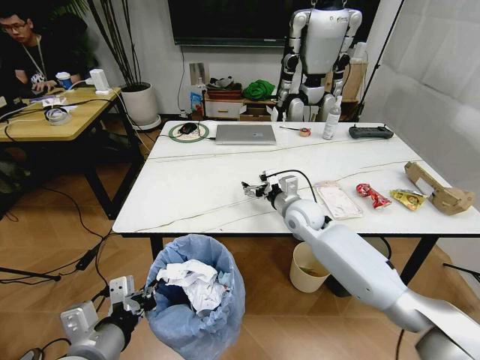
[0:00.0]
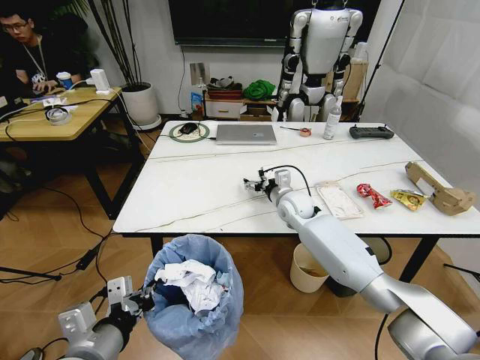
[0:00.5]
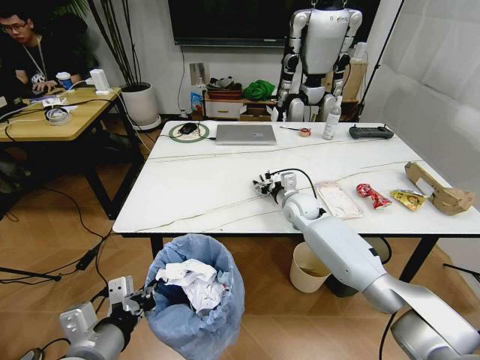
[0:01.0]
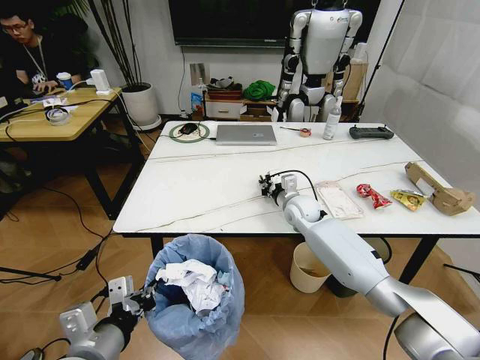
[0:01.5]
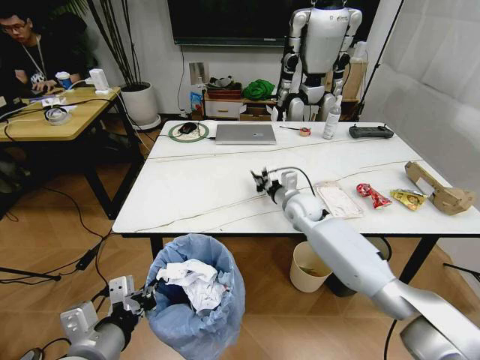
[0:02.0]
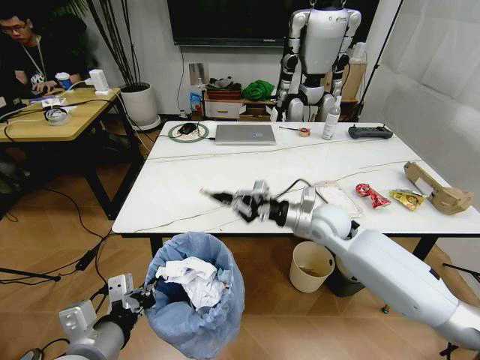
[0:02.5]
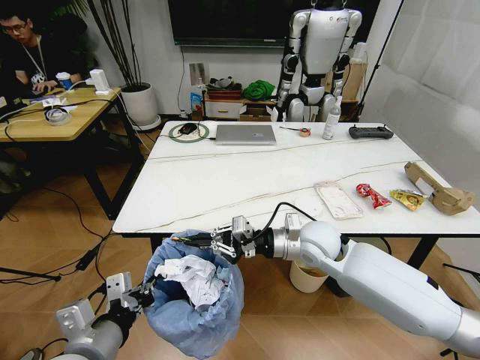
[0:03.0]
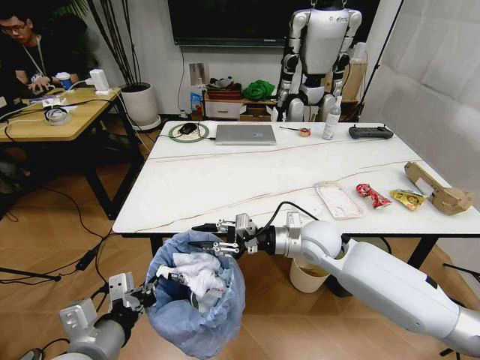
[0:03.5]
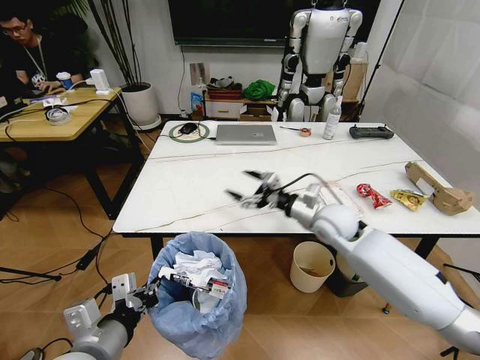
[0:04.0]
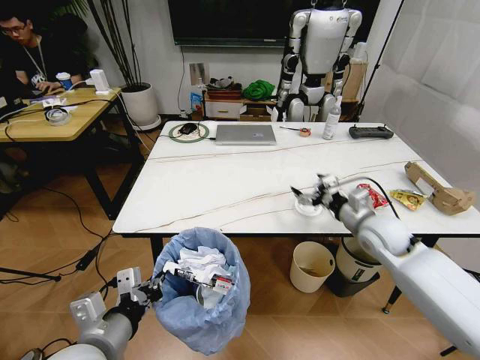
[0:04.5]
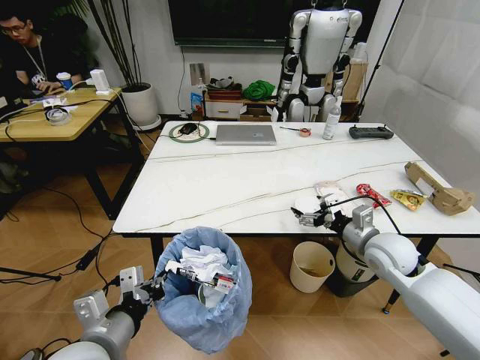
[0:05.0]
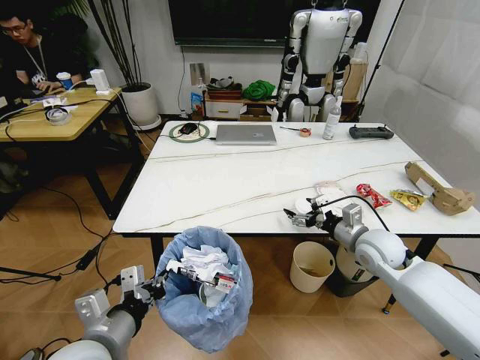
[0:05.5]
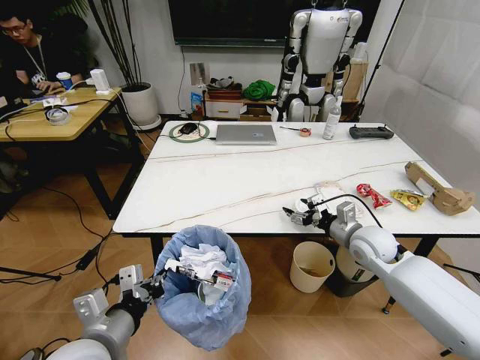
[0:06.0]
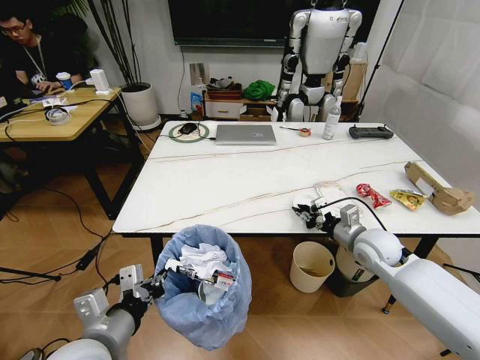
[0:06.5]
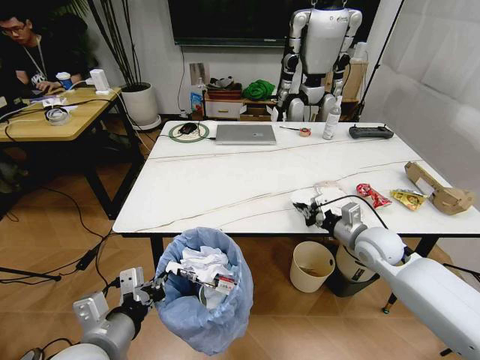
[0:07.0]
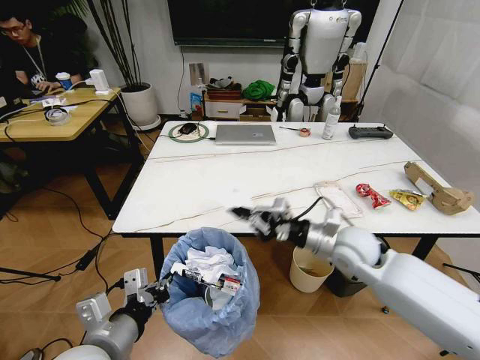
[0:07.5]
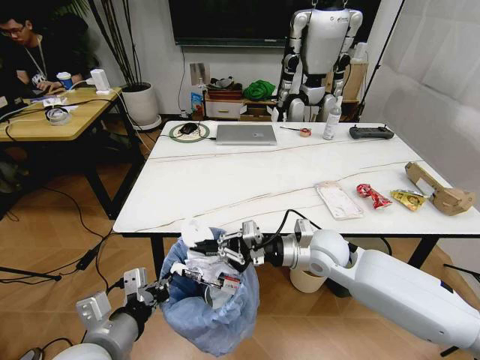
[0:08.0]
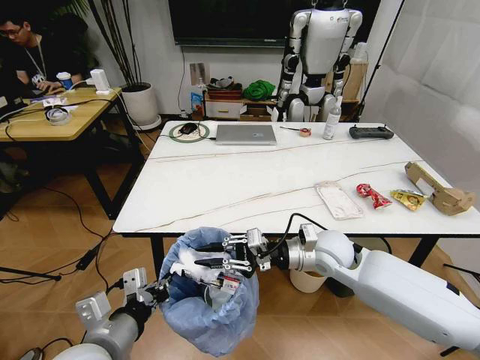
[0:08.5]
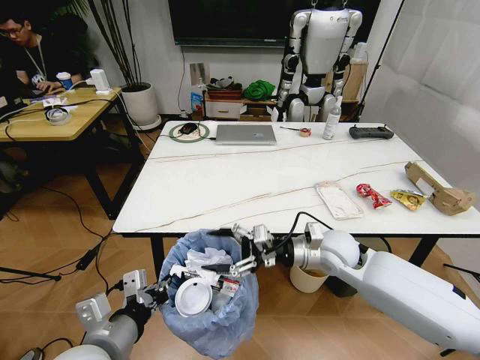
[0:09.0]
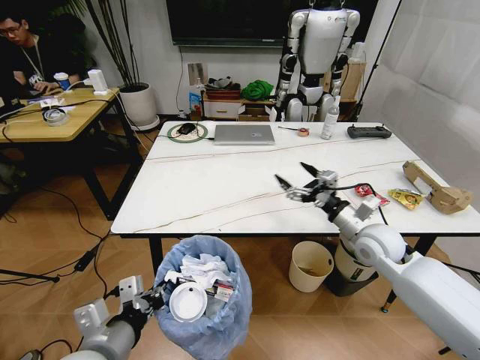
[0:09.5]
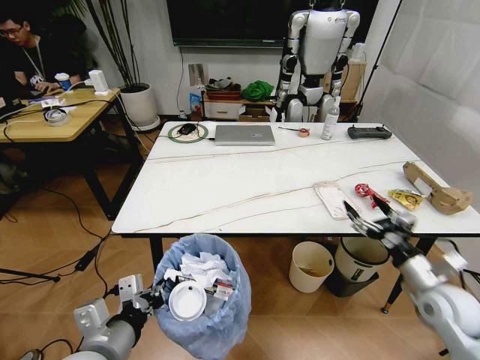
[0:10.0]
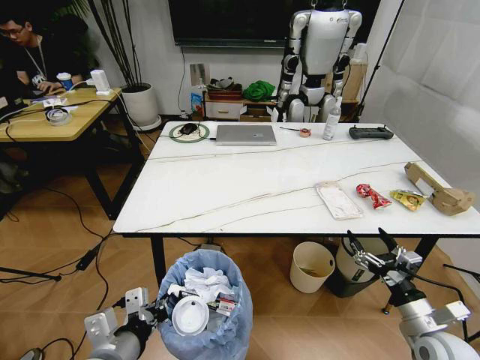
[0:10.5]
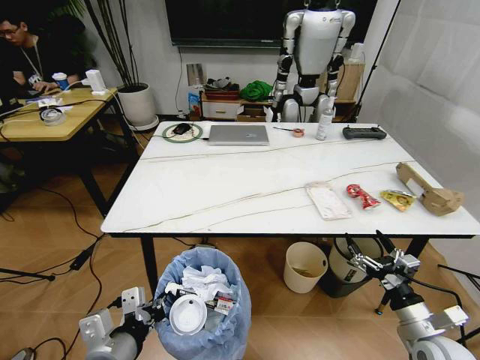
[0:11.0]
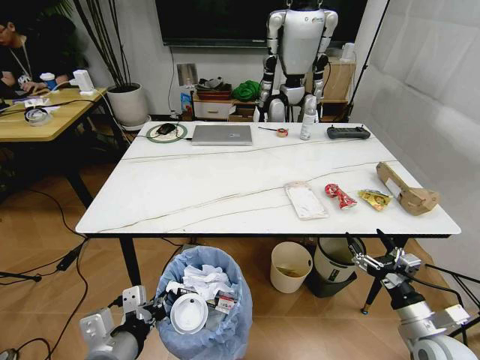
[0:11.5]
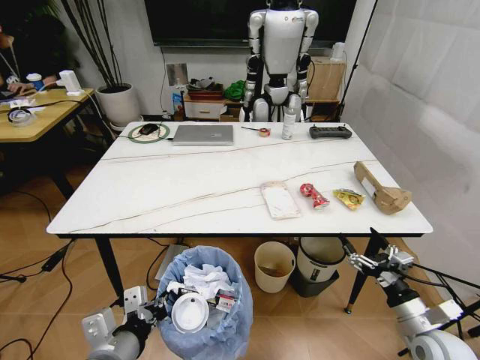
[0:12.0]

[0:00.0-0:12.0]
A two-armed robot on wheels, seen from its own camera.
Task of the whole recording: Pick up the trash bin and place the trash from the table into it.
0:00.0 to 0:02.0: The right gripper closes its fingers.
0:02.0 to 0:04.0: The right gripper shifts some 10 cm backward and to the right, and opens.
0:04.0 to 0:06.0: The right gripper heads to the right, covering roughly 10 cm.
0:06.0 to 0:08.0: The right gripper goes approximately 15 cm to the left, and closes its fingers.
0:08.0 to 0:10.0: The right gripper heads to the right and backward, covering some 25 cm, and opens up.
0:10.0 to 0:12.0: The right gripper goes about 10 cm backward and downward.

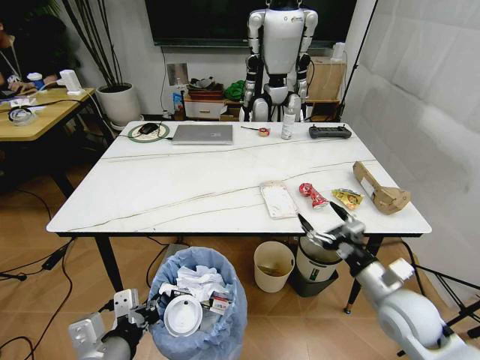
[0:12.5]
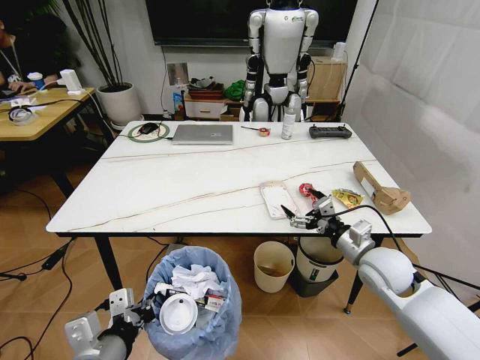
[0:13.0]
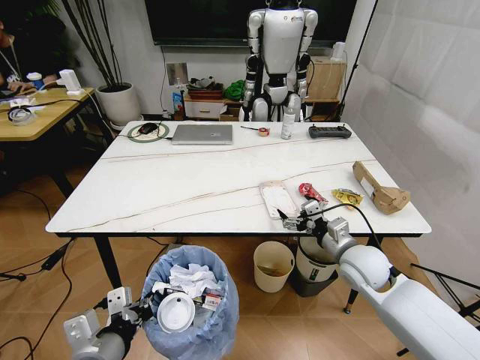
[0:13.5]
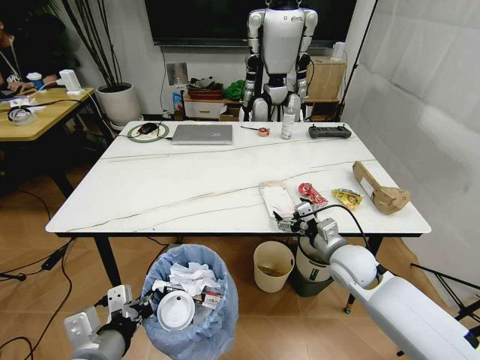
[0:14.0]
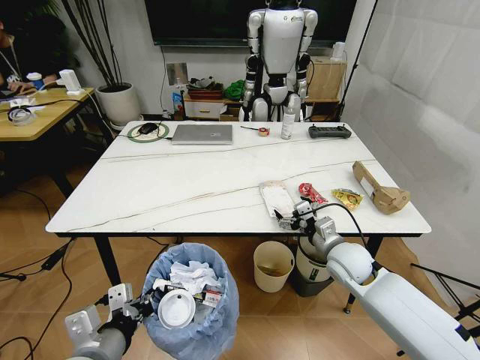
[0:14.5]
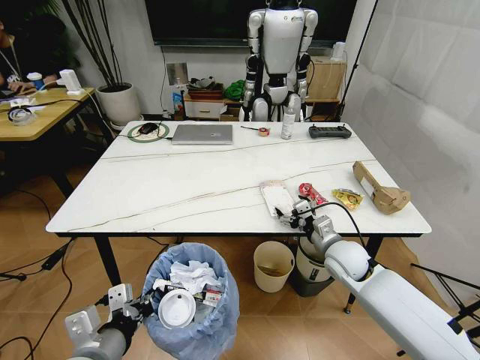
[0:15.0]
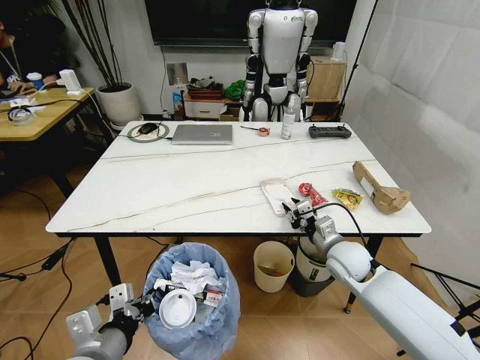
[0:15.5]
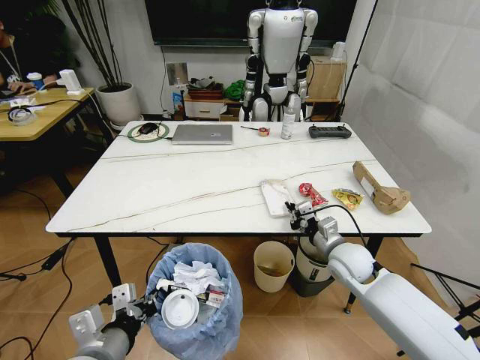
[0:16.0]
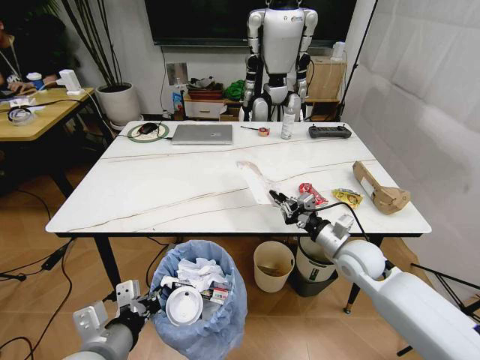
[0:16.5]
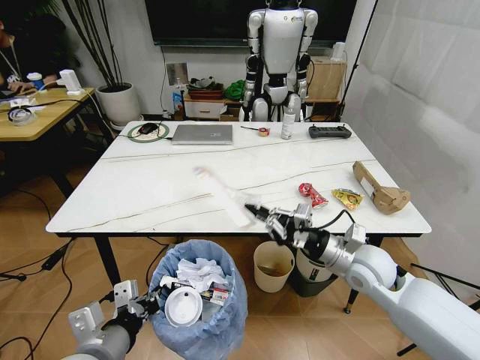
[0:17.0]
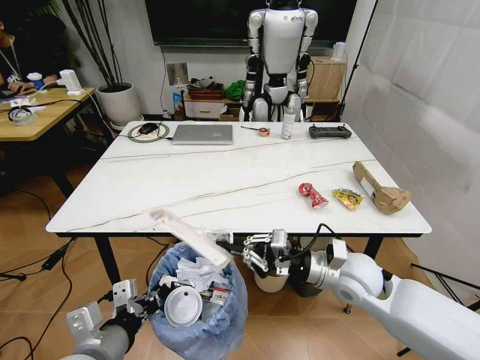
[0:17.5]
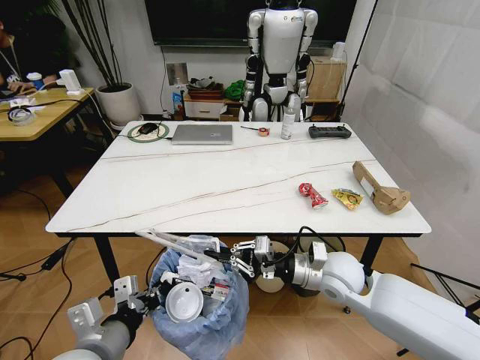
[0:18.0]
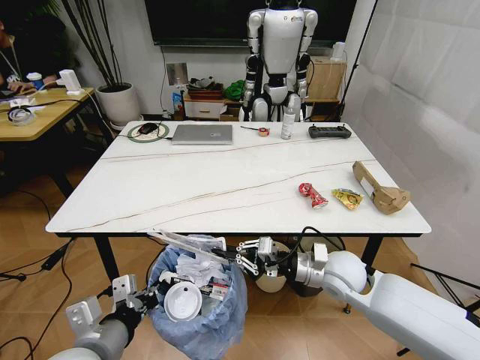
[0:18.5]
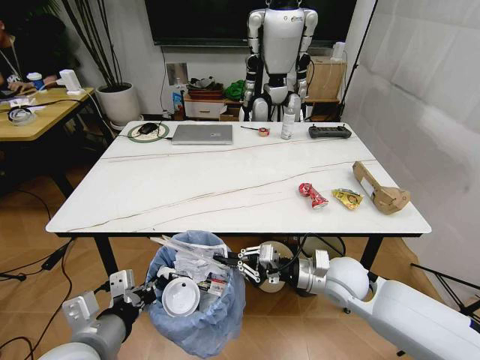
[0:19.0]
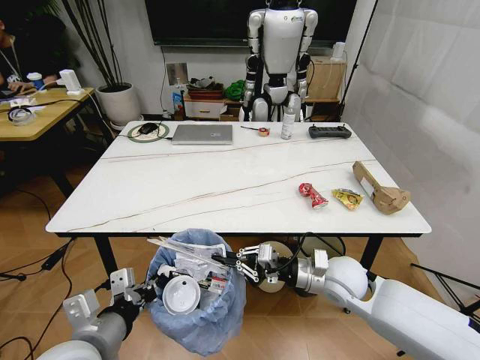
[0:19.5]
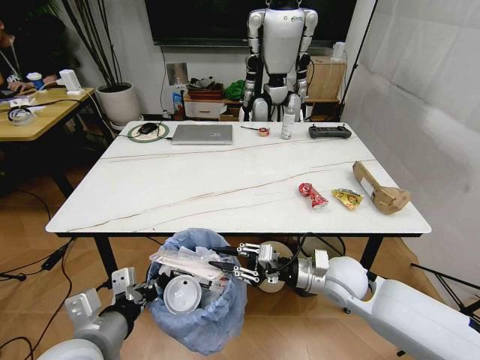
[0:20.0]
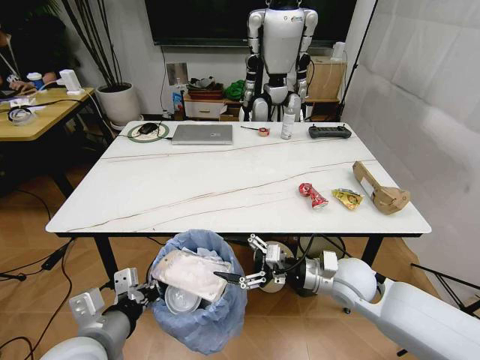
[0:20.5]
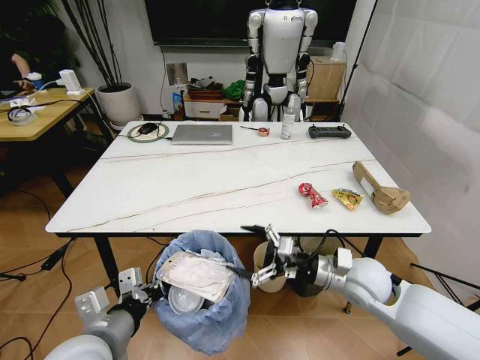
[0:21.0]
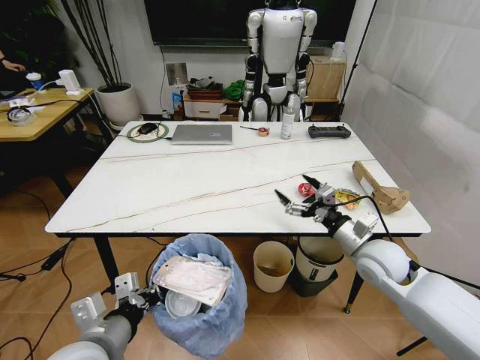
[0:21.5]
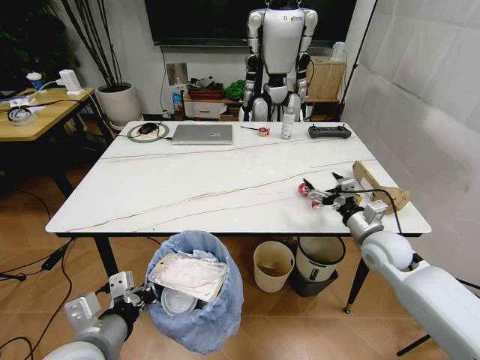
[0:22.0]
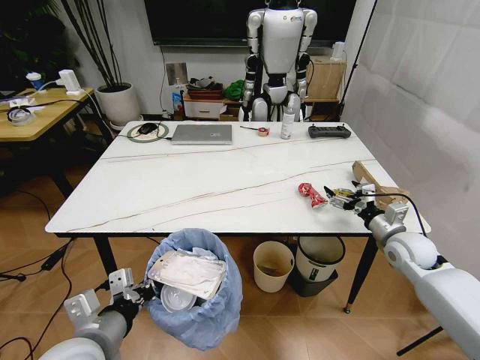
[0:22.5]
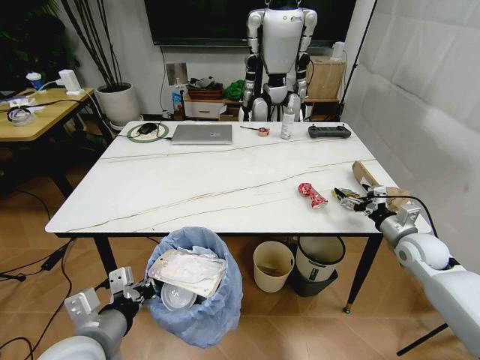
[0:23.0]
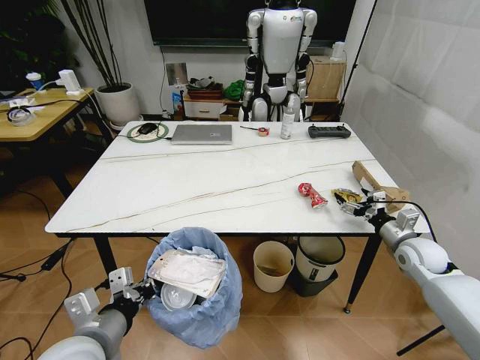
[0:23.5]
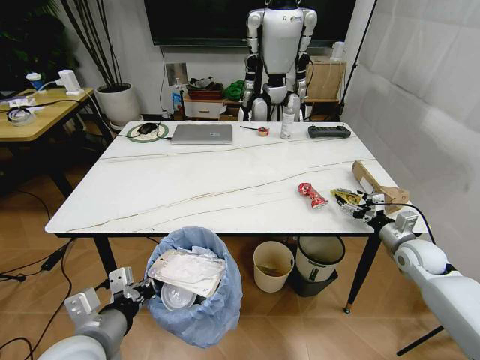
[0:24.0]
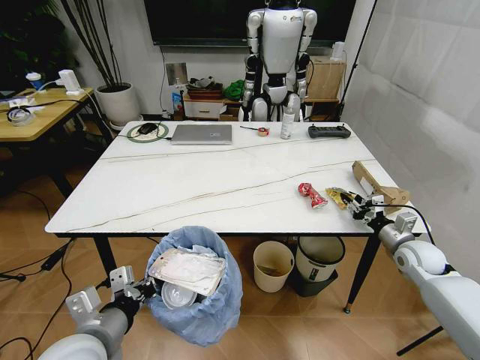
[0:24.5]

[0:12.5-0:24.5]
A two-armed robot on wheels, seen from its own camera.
Task of the whole recording: Pick up the trash bin and place the trash from the table into it.
0:12.5 to 0:14.5: The right gripper travels forward and to the left by roughly 15 cm.
0:14.5 to 0:16.5: The right gripper closes its fingers.
0:16.5 to 0:18.5: The right gripper moves to the left, roughly 5 cm.
0:18.5 to 0:20.5: The right gripper opens up.
0:20.5 to 0:22.5: The right gripper is displaced to the right and forward by roughly 20 cm.
0:22.5 to 0:24.5: The right gripper is displaced to the right by some 5 cm, and closes its fingers.

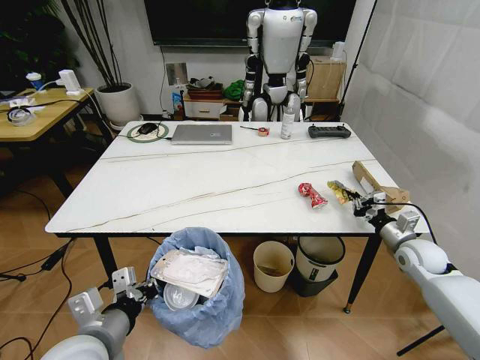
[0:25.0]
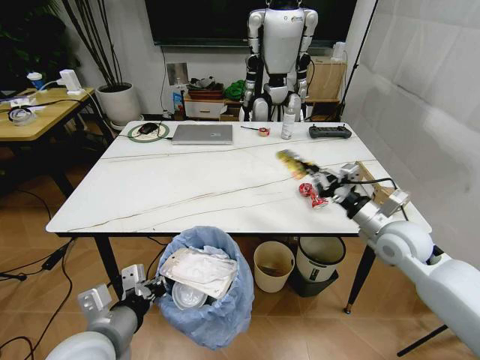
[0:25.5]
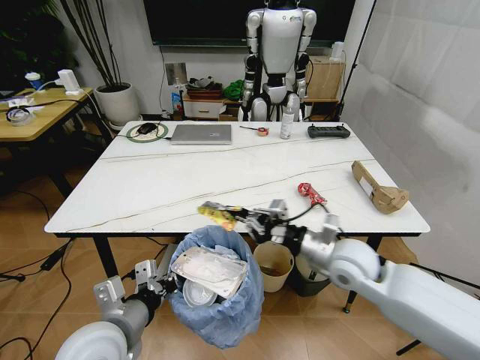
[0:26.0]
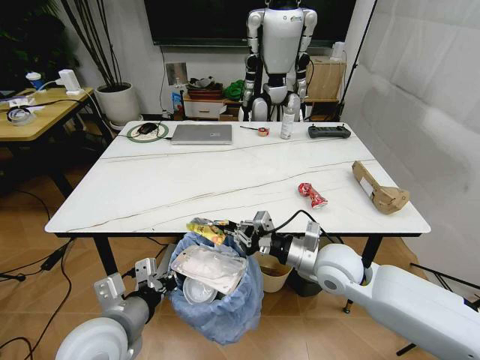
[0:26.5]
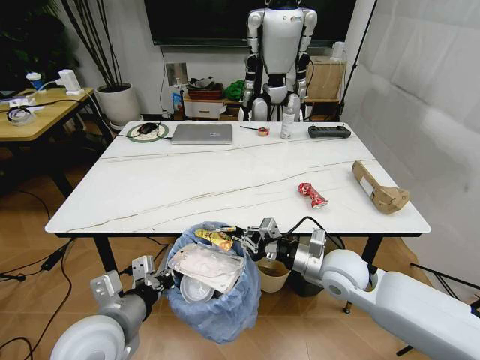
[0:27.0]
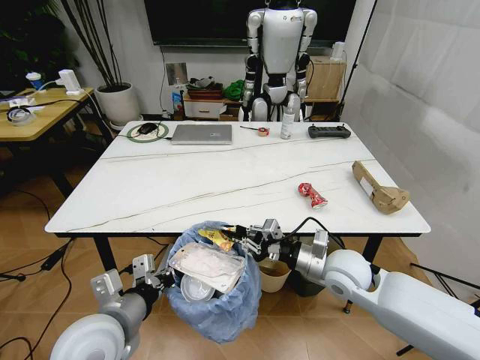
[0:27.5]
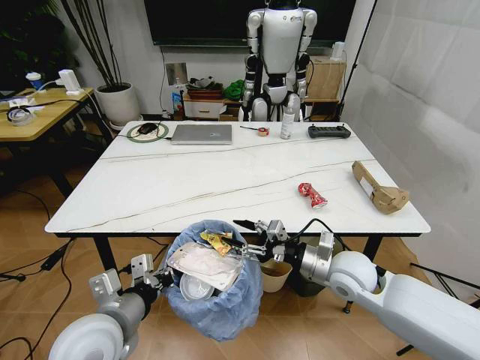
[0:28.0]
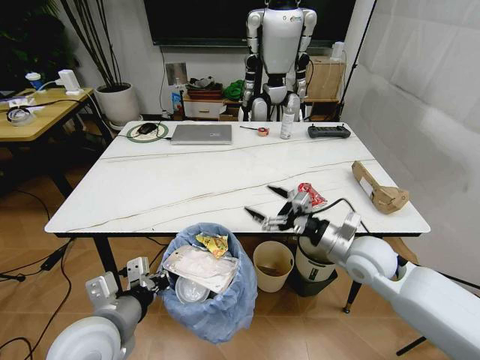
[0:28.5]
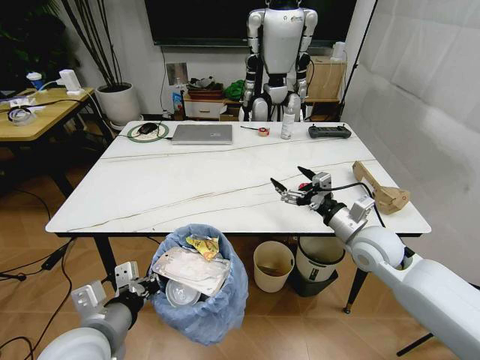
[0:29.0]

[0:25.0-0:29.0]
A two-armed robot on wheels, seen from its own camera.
Task of the whole recording: Pick up the trash bin and place the trash from the table into it.
0:25.0 to 0:27.0: The right gripper is displaced to the left by some 25 cm.
0:27.0 to 0:29.0: The right gripper heads to the right, covering roughly 5 cm, and opens up.
